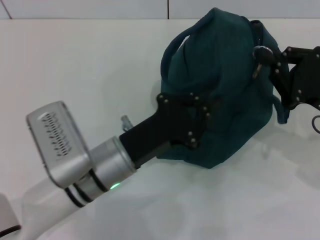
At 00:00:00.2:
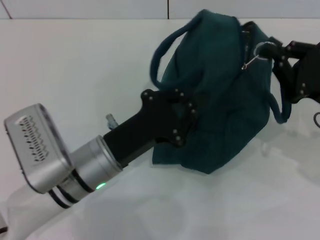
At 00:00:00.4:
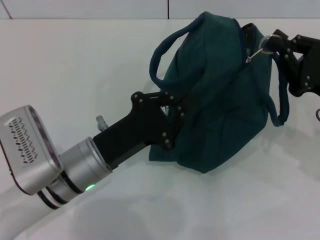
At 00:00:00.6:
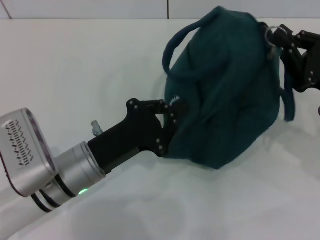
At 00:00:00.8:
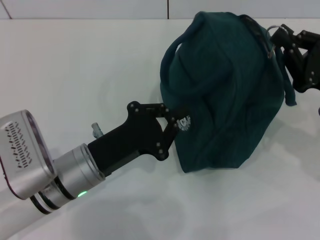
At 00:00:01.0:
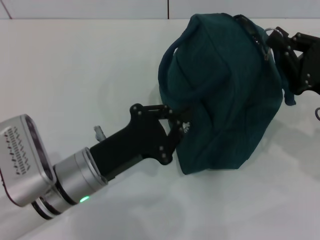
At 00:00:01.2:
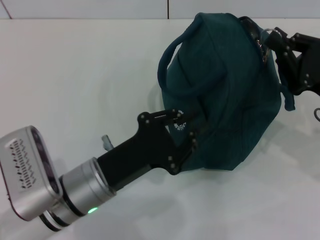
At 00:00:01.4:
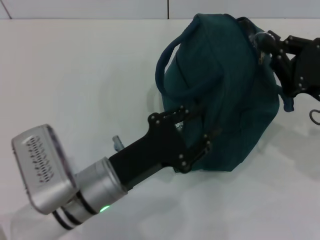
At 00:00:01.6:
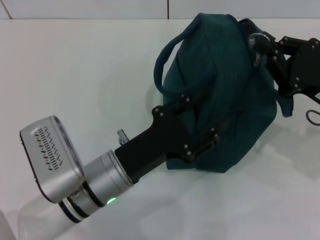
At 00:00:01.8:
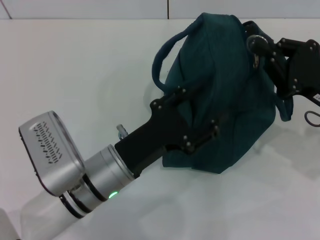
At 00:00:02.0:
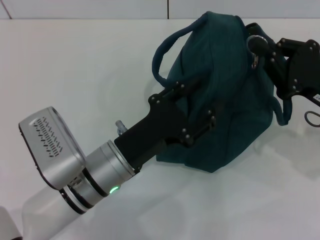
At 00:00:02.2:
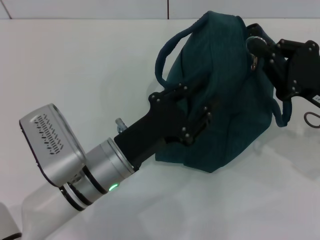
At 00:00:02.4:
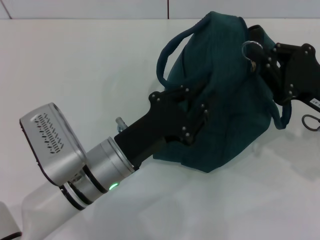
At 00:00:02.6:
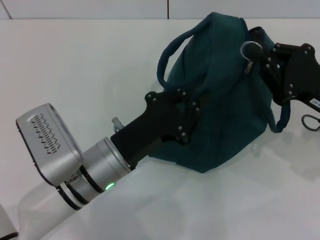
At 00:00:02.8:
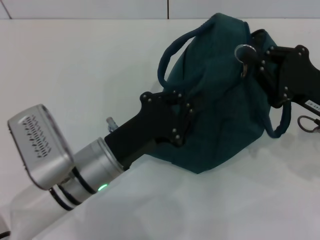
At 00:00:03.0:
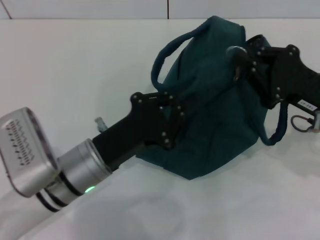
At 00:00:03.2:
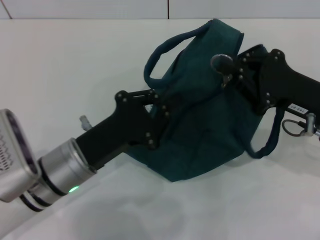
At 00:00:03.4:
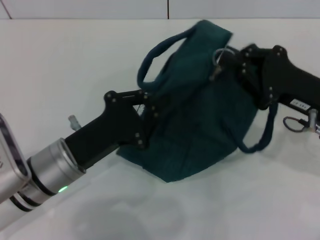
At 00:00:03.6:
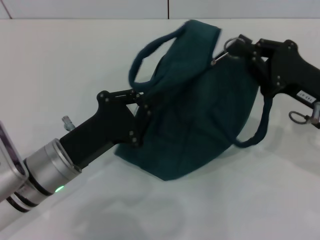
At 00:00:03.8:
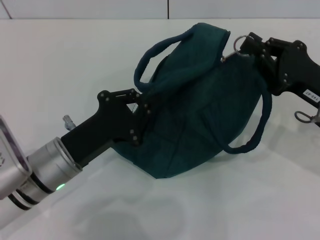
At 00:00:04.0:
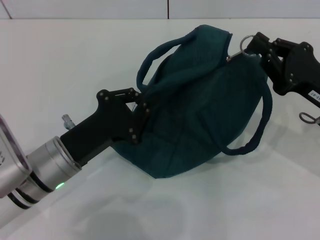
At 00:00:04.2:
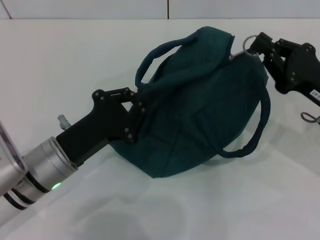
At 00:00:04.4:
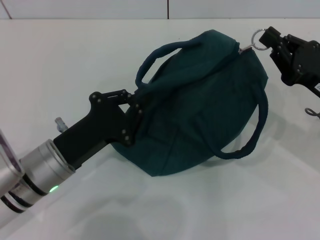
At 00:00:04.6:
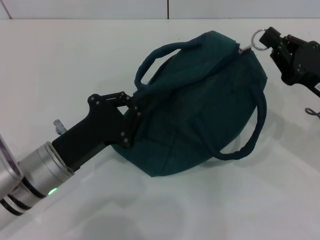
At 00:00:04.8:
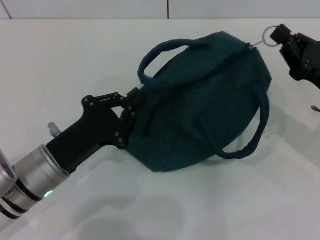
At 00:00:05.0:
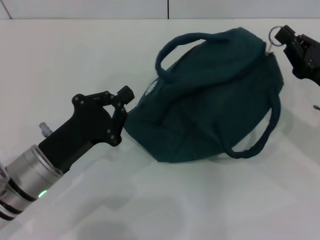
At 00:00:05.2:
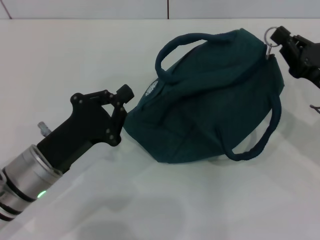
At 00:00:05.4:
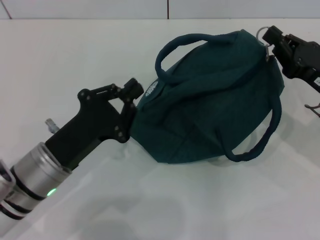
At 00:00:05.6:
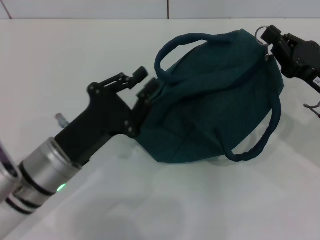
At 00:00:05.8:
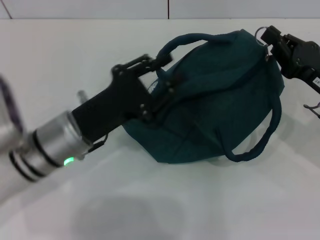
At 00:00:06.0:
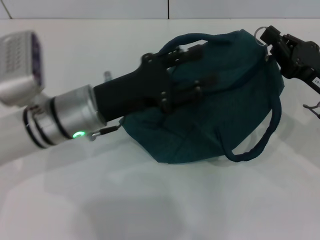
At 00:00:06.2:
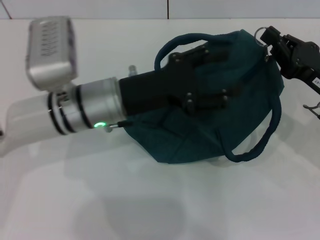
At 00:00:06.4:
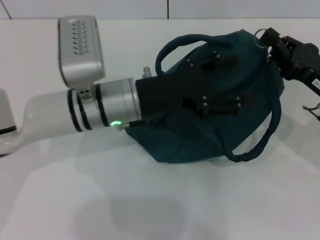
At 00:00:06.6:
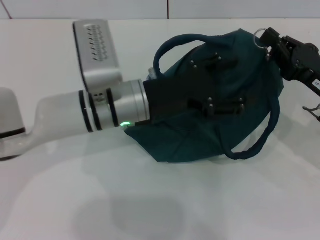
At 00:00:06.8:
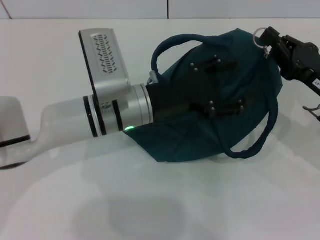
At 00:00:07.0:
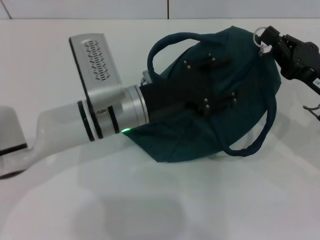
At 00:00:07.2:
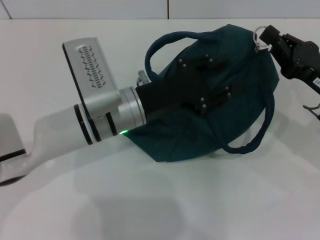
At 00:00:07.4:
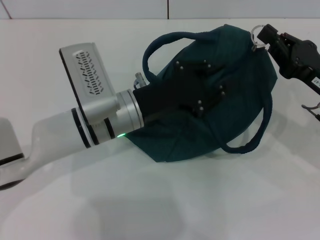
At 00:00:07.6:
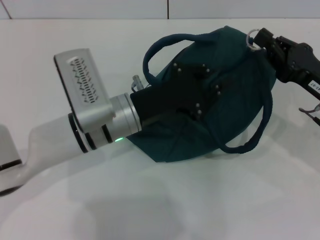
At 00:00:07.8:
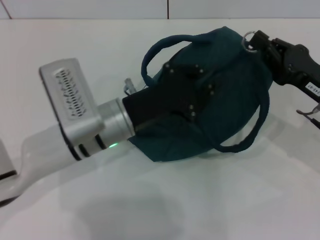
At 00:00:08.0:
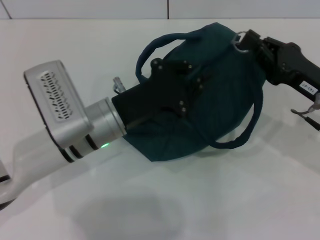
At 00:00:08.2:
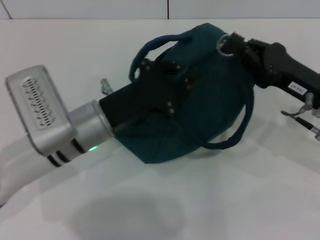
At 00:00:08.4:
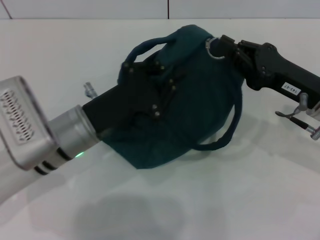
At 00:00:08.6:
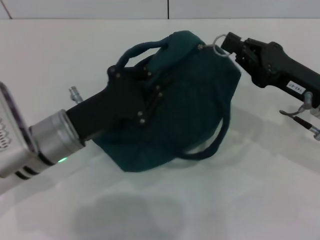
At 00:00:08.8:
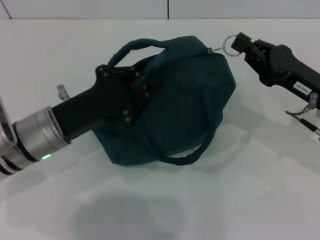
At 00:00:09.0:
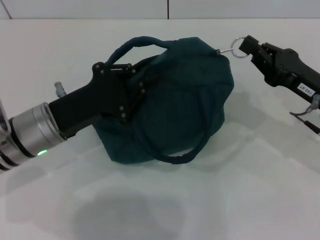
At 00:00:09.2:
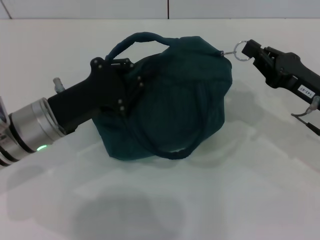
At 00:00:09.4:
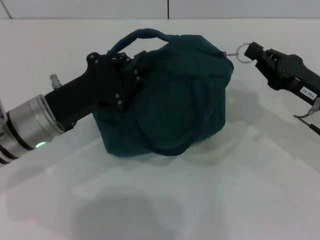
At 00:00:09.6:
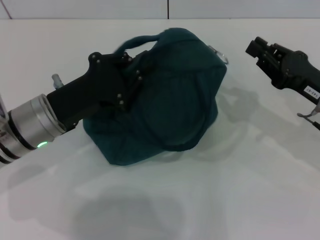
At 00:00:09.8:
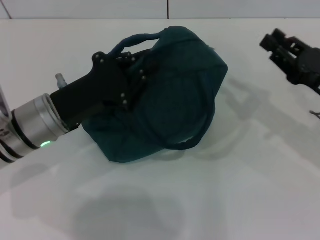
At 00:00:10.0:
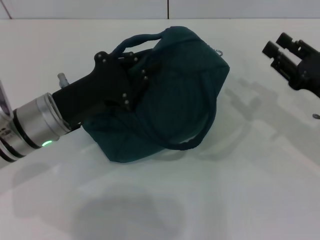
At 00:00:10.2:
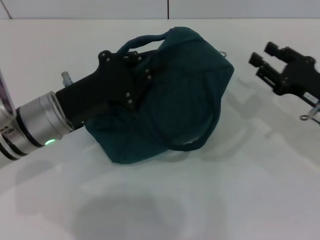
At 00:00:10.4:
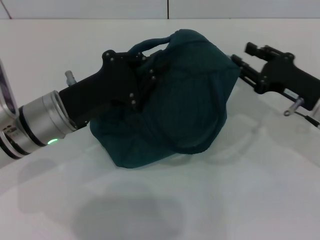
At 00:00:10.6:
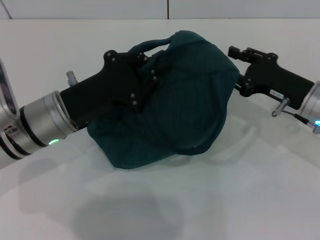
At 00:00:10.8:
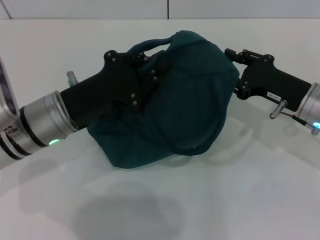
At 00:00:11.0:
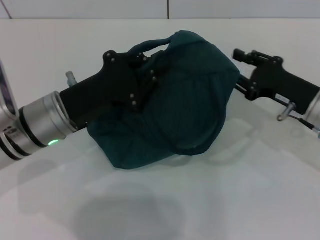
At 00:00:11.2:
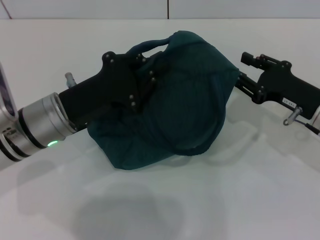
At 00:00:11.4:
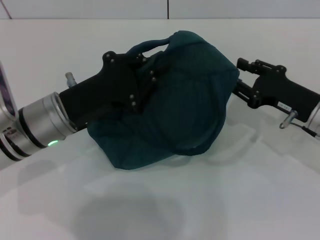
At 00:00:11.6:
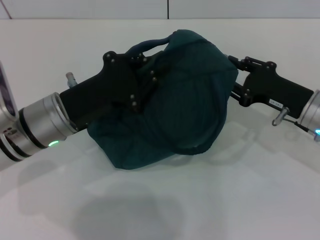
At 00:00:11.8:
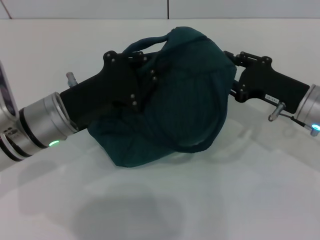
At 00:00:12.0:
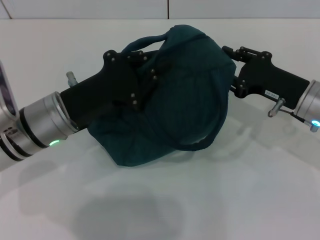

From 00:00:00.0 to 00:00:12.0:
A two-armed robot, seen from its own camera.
Step, from 00:00:00.0 to 00:00:09.4: Zip up the lunch bag with your right hand.
From 00:00:00.0 to 00:00:01.6: The left gripper opens up.
From 00:00:01.6 to 00:00:03.0: The left gripper closes its fingers.
From 00:00:03.0 to 00:00:04.4: The left gripper ends up some 5 cm from where it was.
From 00:00:04.4 to 00:00:06.0: The left gripper goes some 10 cm forward and upward, and opens up.
From 00:00:06.0 to 00:00:07.6: The left gripper shifts by roughly 5 cm, and opens and closes again.
From 00:00:07.6 to 00:00:09.0: The left gripper heads to the left, covering about 10 cm.
From 00:00:09.0 to 00:00:10.4: The right gripper opens its fingers.
From 00:00:10.4 to 00:00:12.0: The grippers stay close to where they were, moving slightly.

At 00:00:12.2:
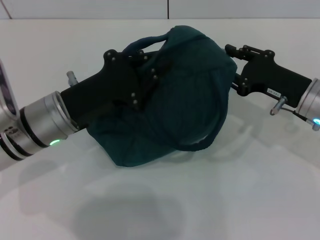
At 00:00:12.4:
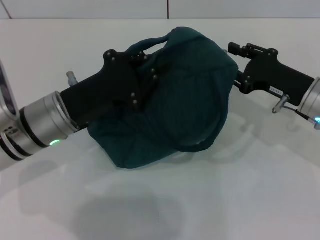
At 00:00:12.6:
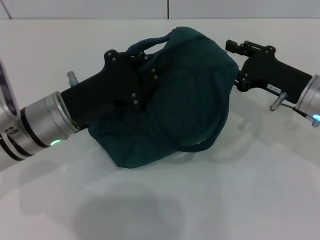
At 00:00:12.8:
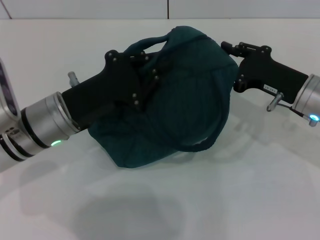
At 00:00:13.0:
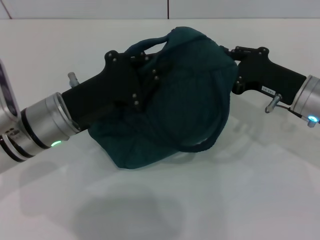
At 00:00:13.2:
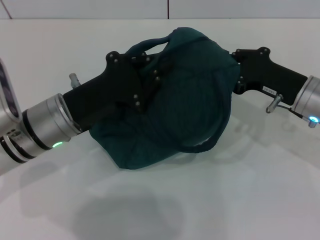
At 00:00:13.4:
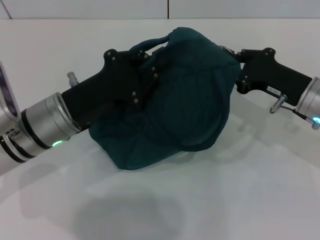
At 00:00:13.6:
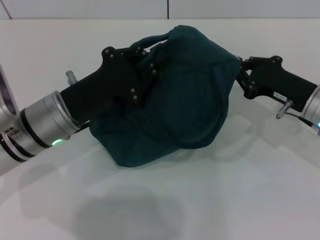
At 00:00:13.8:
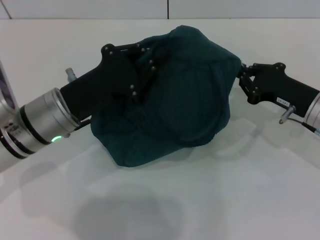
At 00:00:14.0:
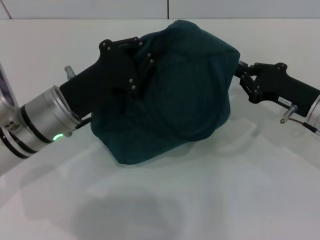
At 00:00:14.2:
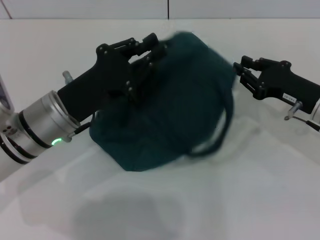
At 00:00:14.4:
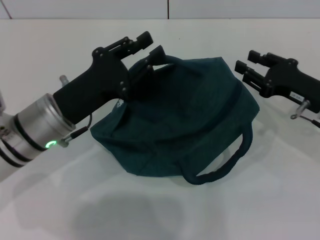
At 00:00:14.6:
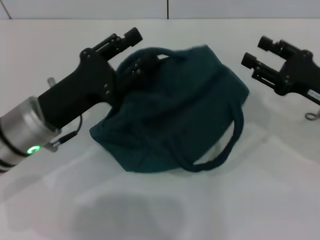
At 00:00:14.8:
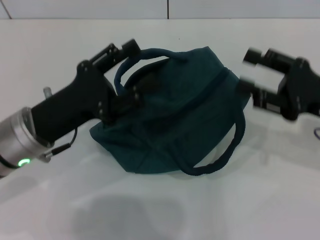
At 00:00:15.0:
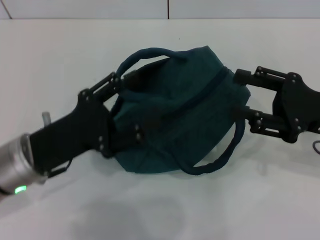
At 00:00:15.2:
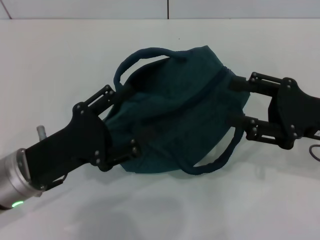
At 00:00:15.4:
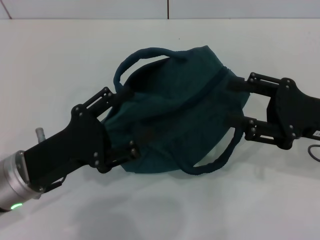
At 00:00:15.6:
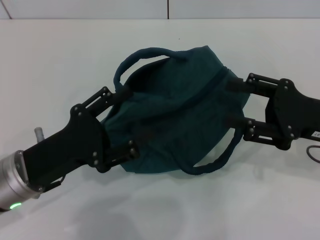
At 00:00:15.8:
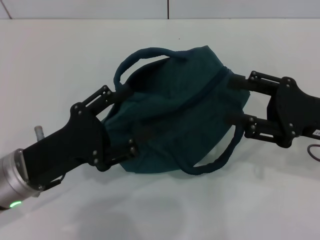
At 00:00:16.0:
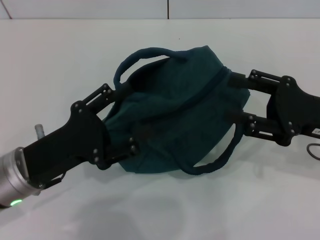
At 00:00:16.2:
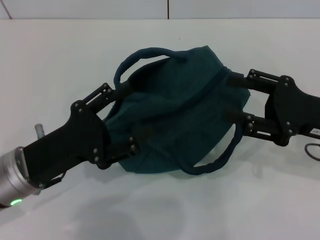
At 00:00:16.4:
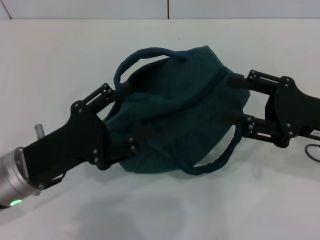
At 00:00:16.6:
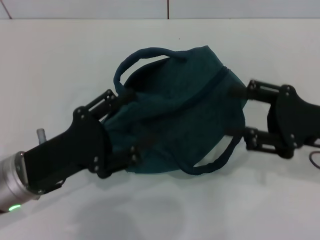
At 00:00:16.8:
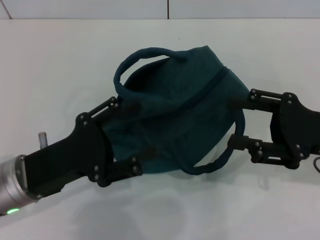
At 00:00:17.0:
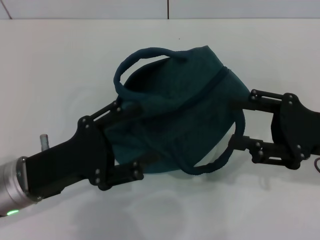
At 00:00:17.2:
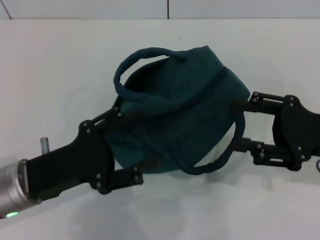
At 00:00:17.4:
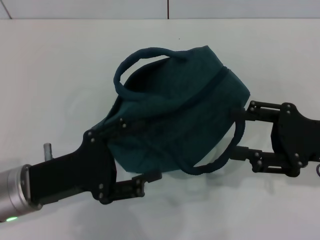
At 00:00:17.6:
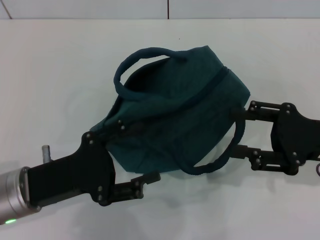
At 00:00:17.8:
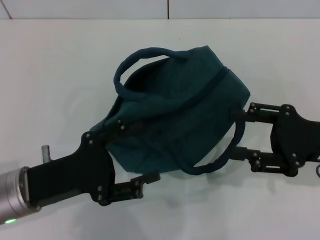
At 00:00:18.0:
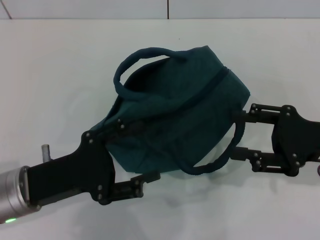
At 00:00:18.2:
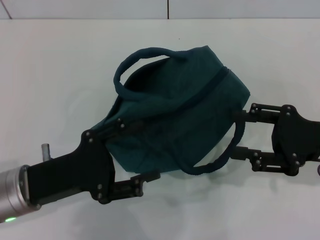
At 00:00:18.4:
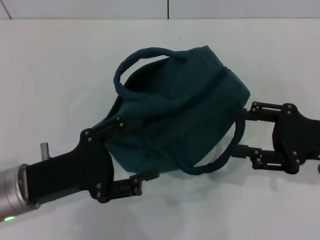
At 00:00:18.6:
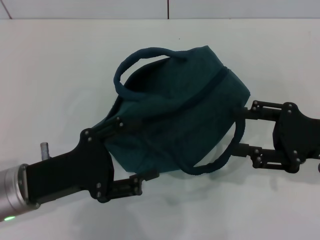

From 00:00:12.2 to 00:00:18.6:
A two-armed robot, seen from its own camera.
Step, from 00:00:12.2 to 00:00:14.2: Hold the lunch bag with your left hand.
From 00:00:12.2 to 00:00:13.8: The right gripper closes up.
From 00:00:13.8 to 00:00:15.4: The left gripper heads backward, covering roughly 10 cm, and opens up, while the right gripper heads upward and backward, covering some 10 cm, and opens up.
From 00:00:15.4 to 00:00:18.6: The grippers move only a little.
